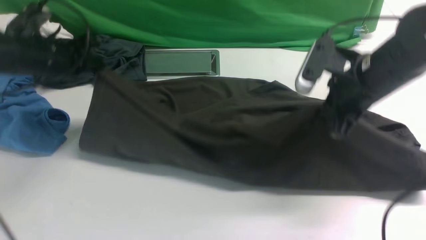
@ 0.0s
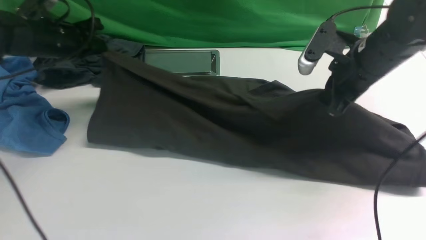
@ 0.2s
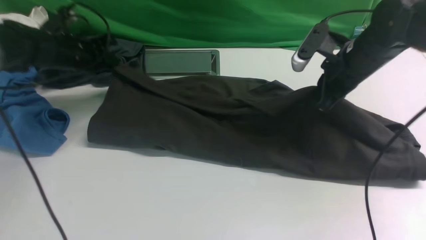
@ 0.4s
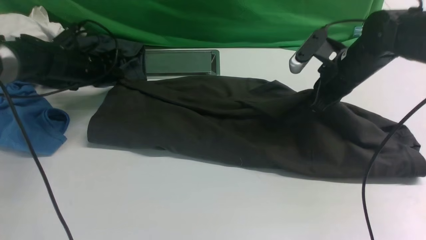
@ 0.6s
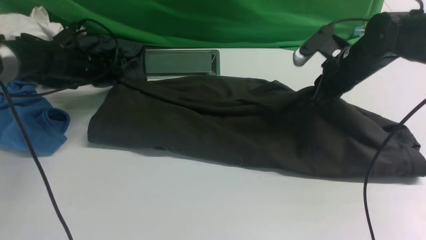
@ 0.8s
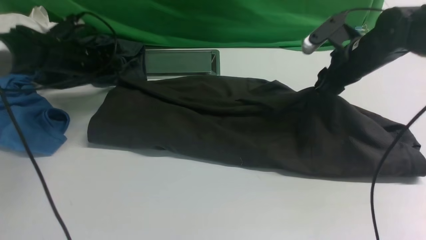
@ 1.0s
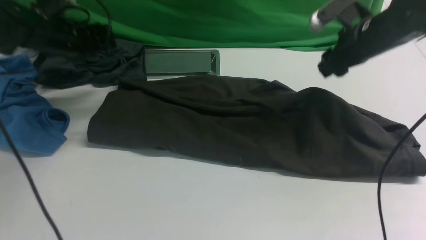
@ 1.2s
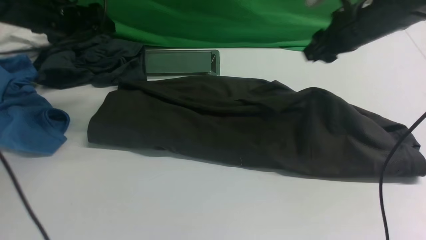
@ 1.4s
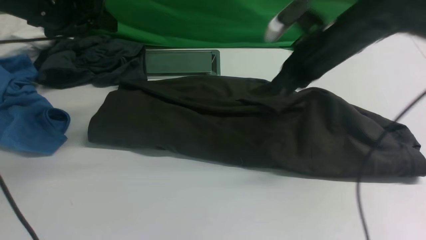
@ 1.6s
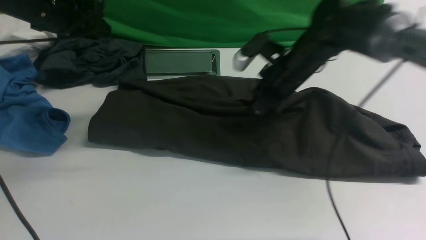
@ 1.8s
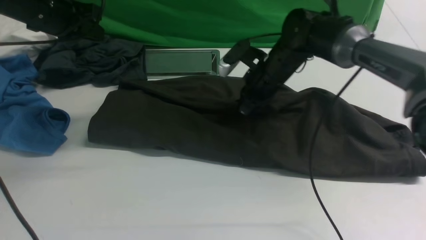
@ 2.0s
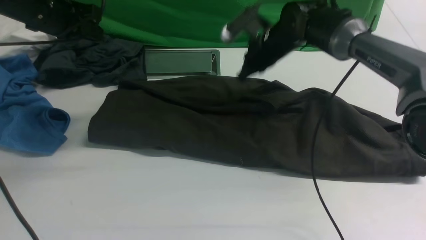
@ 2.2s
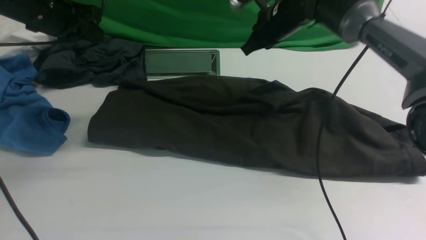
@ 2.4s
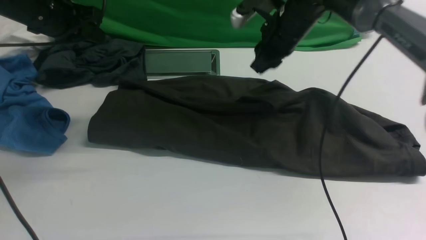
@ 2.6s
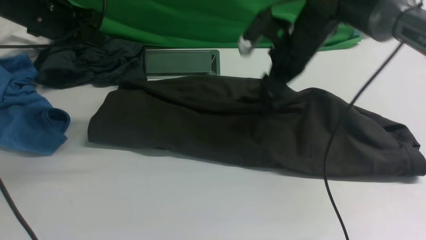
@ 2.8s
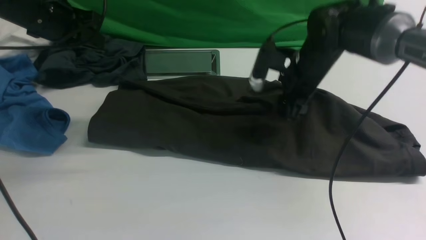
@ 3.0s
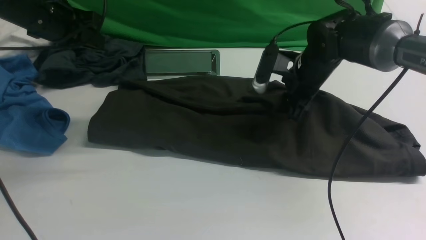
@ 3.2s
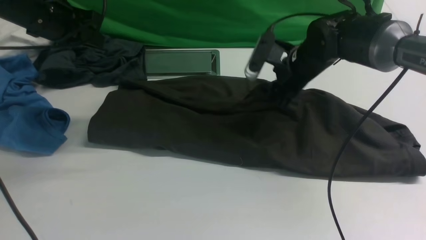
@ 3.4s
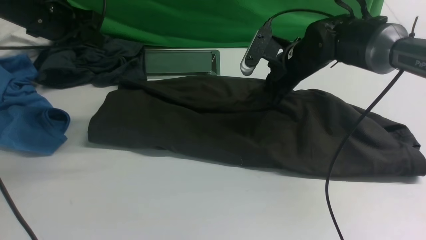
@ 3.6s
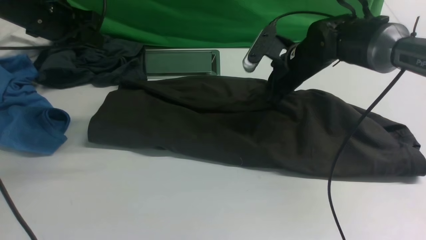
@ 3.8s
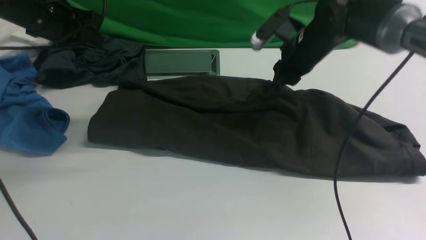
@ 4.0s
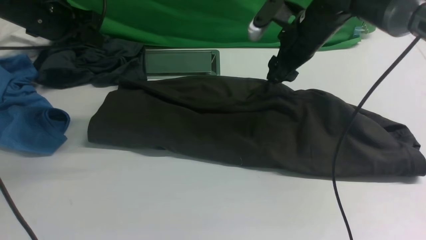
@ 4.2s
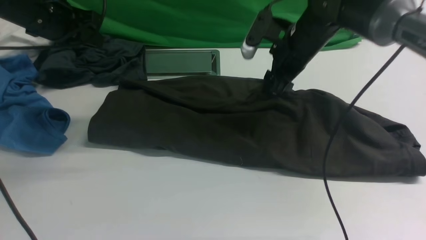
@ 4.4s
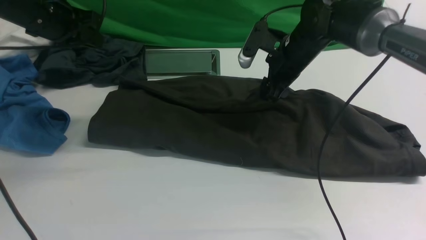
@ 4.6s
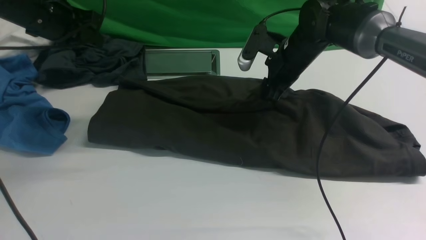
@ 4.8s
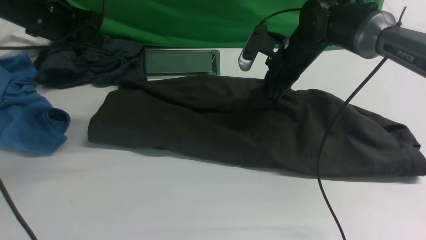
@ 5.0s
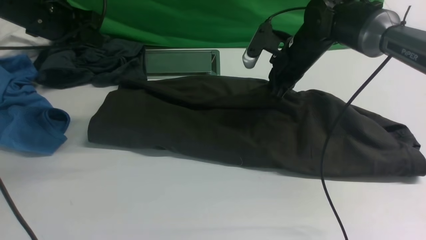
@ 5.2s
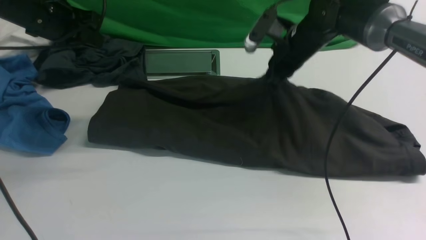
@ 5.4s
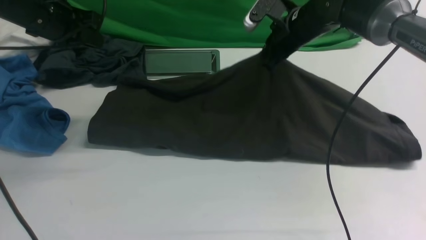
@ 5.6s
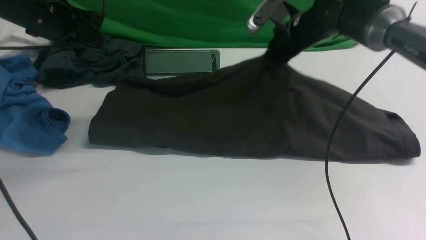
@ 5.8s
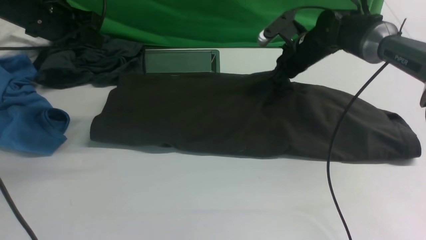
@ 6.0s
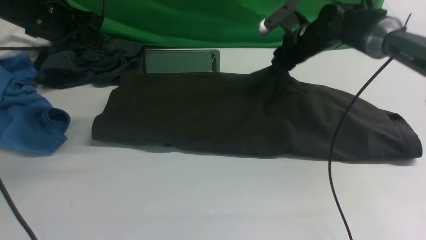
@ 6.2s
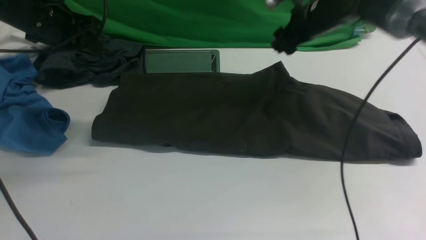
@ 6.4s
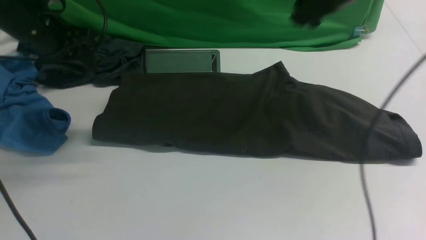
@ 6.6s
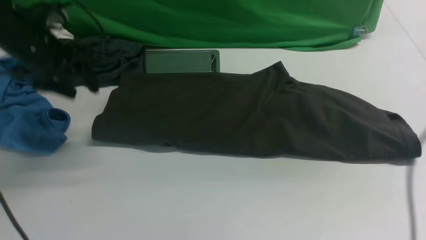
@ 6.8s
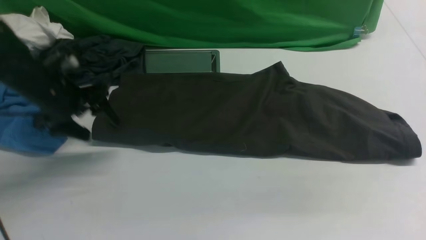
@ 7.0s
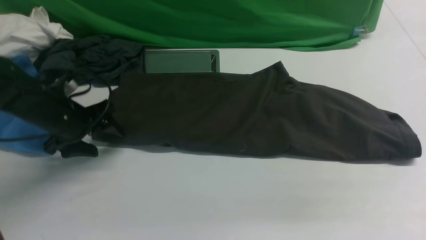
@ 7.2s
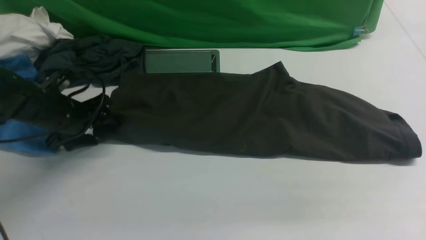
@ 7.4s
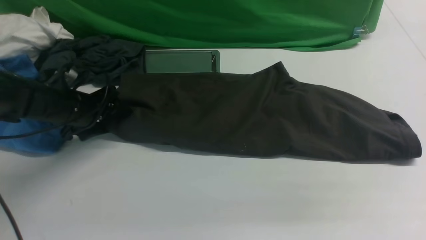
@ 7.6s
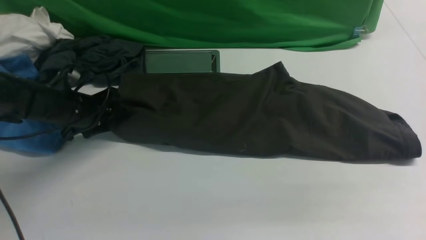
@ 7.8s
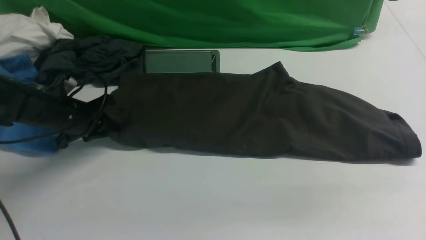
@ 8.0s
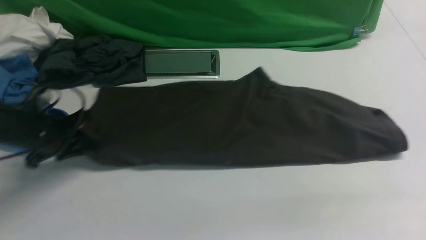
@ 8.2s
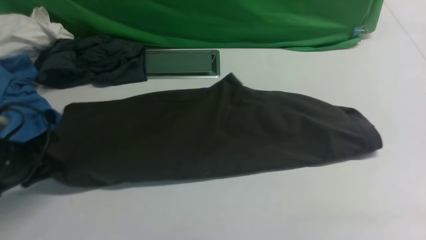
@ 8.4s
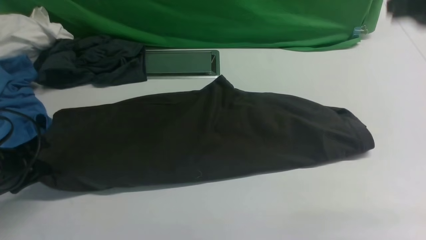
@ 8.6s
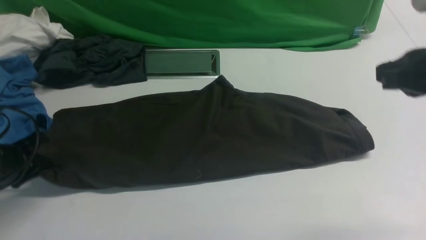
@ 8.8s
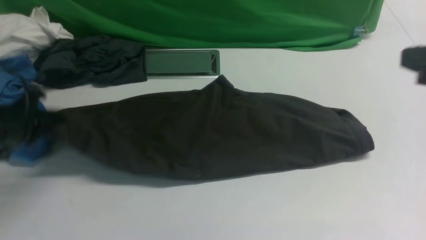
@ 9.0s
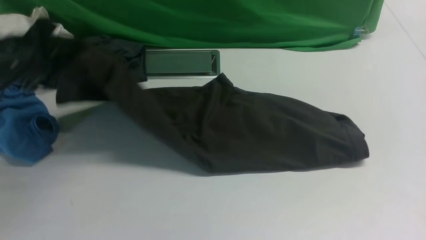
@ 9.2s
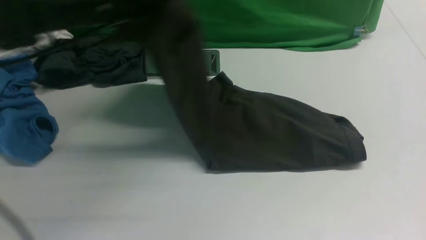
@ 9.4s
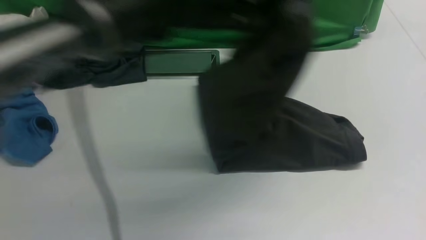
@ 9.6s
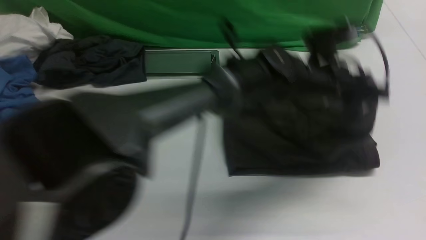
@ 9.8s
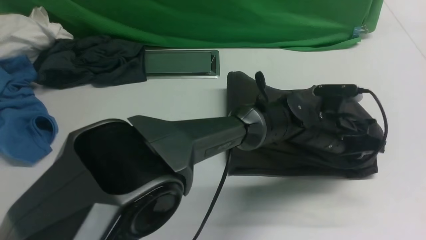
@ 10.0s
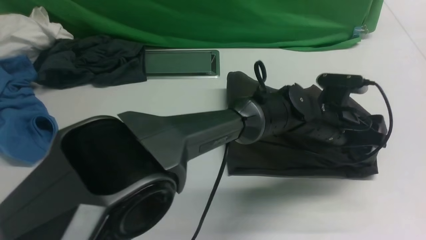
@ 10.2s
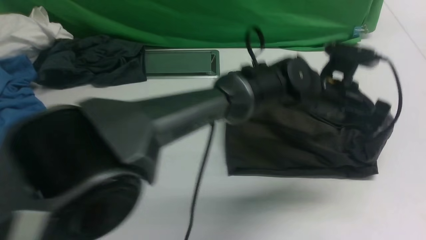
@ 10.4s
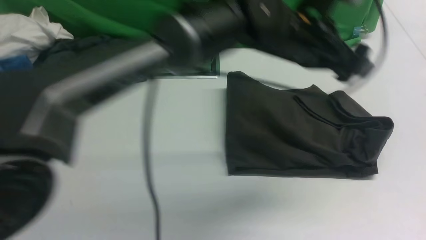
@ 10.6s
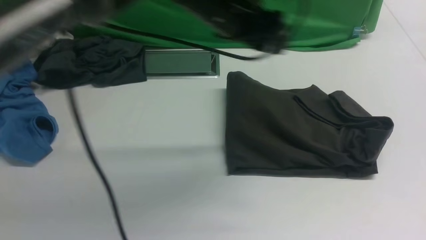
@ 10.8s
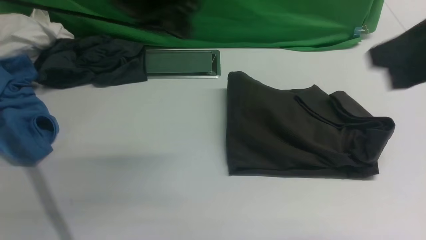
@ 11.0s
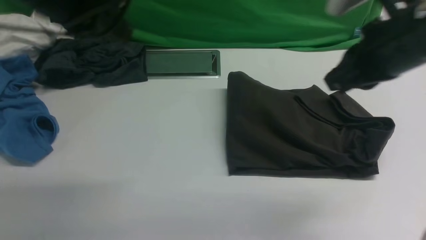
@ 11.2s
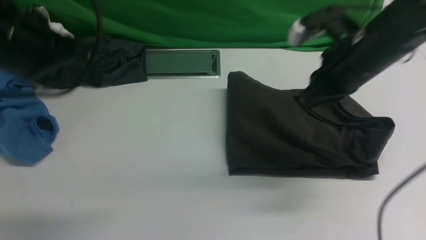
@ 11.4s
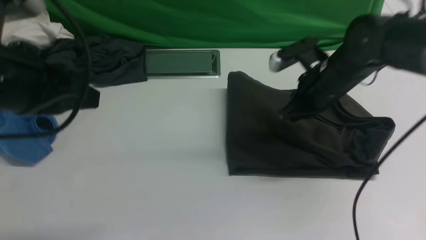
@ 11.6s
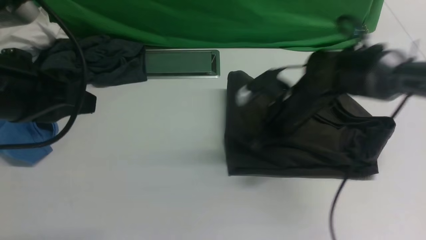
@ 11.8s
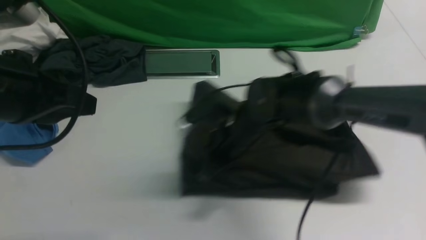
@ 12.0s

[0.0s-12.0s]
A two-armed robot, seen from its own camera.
Step, 0.0s to 6.4s: use both arms to drag the lower edge of the fabric forward and fold it over the upper edge.
Step, 6.6s to 8.8s: Hold the left edge of the fabric with your left arm.
Step, 9.0s to 10.8s: Drag the left edge of the fabric to the left with your left arm and fold it to the right edge.
0.0s to 1.6s: The right gripper moves forward, approximately 10 cm, and opens, then closes again. Meanwhile the left gripper moves upward, some 5 cm, and opens.
1.6s to 3.0s: The left gripper closes its fingers. The right gripper goes forward and returns, approximately 10 cm each way, and opens.
3.0s to 4.4s: The right gripper closes, then opens again.
4.4s to 6.0s: The right gripper goes some 5 cm forward, and closes up.
6.0s to 7.6s: The right gripper moves upward and backward, about 30 cm, and opens up. Meanwhile the left gripper is displaced downward by roughly 15 cm, and opens.
7.6s to 9.0s: The left gripper heads upward and backward, covering roughly 10 cm, and closes up. Meanwhile the right gripper moves backward, approximately 15 cm, and closes.
9.0s to 10.4s: The right gripper goes roughly 10 cm backward and upward. The left gripper goes about 40 cm to the right, and opens up.
10.4s to 12.0s: The right gripper is displaced downward, to the left and forward by roughly 40 cm, while the left gripper travels to the left and backward by some 40 cm, and closes its fingers.

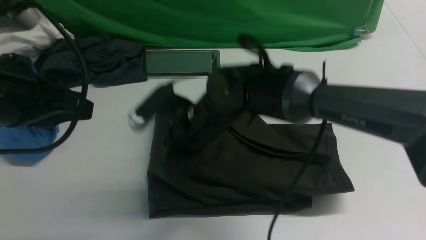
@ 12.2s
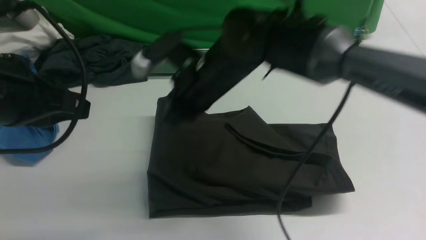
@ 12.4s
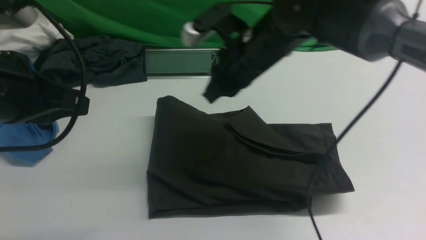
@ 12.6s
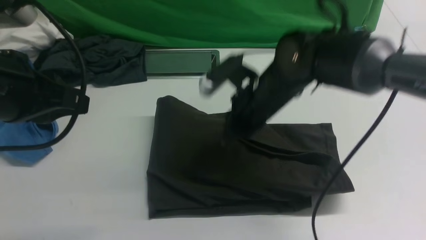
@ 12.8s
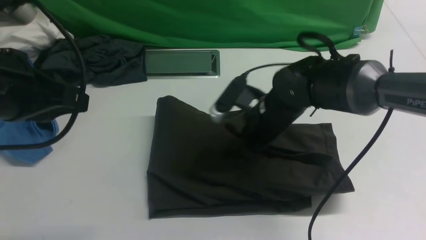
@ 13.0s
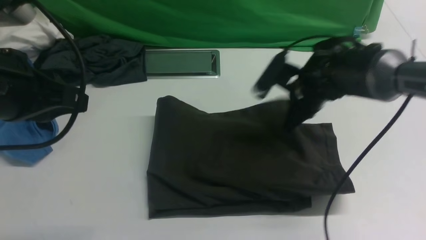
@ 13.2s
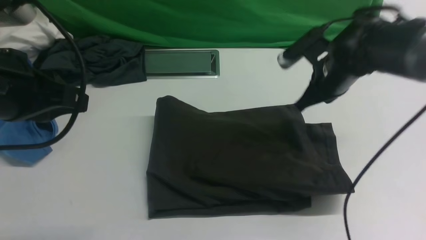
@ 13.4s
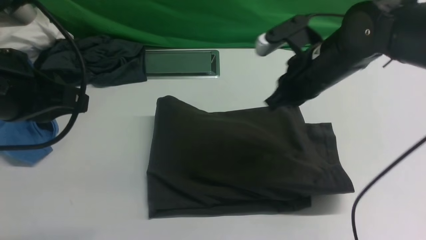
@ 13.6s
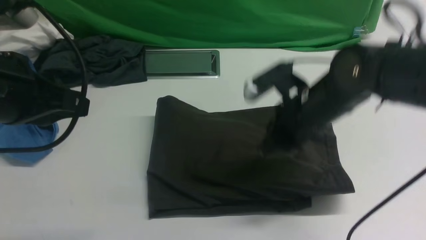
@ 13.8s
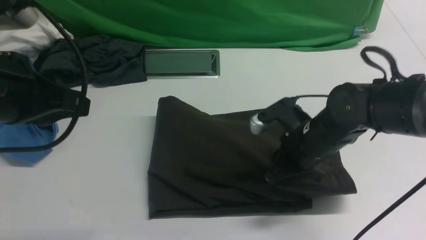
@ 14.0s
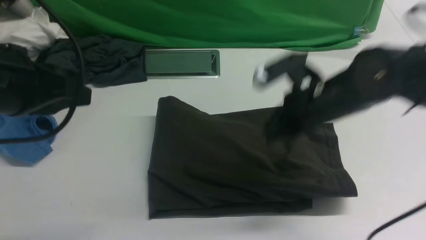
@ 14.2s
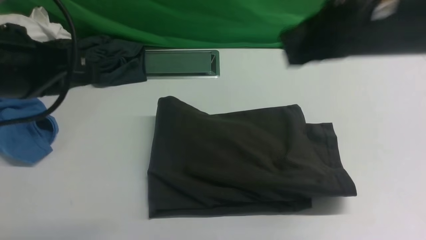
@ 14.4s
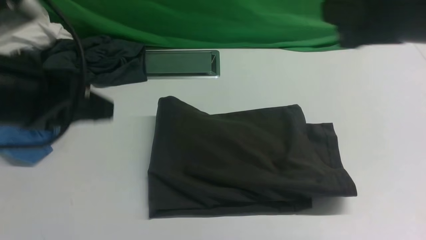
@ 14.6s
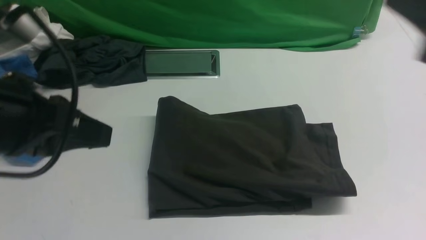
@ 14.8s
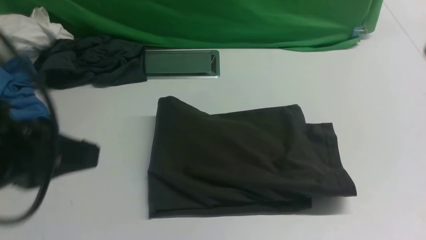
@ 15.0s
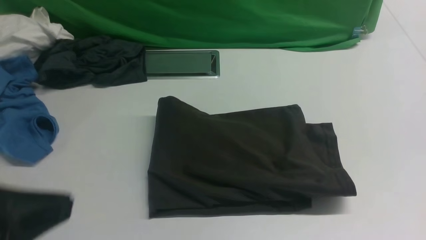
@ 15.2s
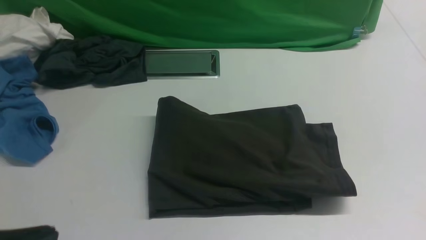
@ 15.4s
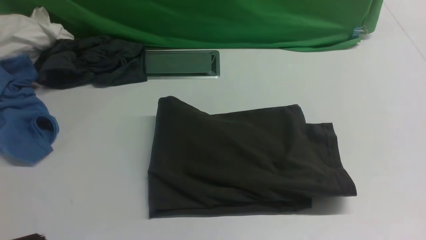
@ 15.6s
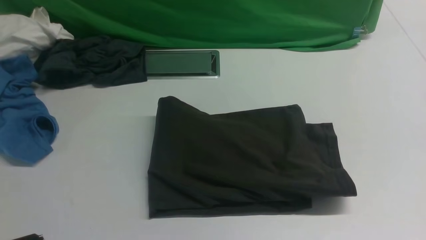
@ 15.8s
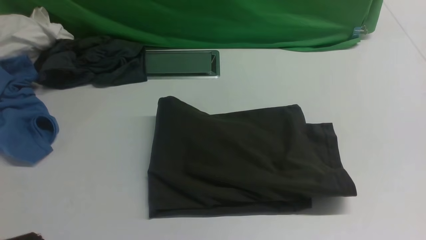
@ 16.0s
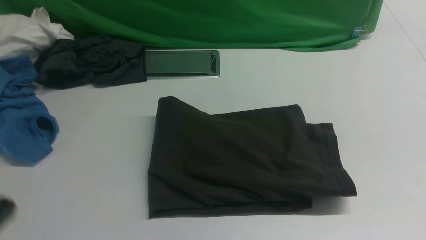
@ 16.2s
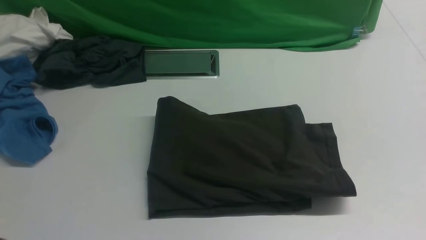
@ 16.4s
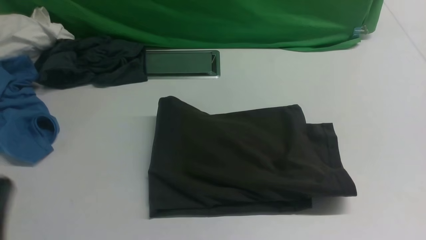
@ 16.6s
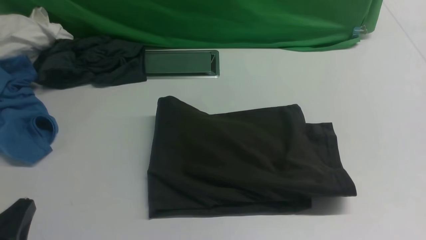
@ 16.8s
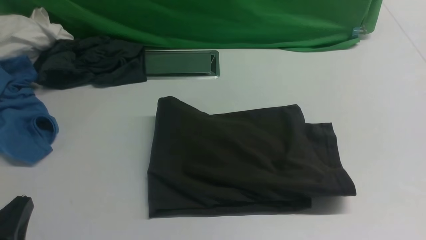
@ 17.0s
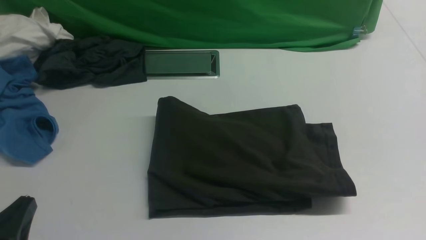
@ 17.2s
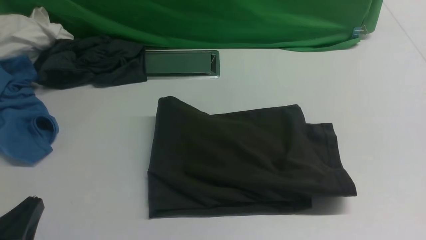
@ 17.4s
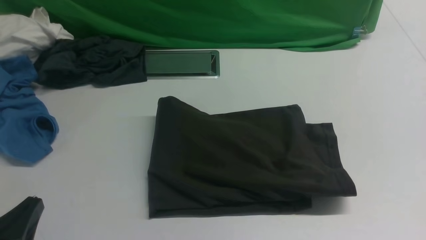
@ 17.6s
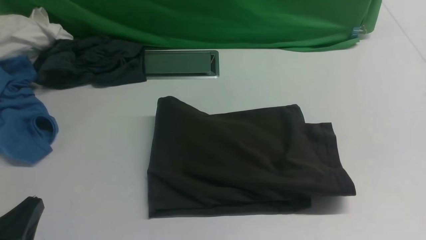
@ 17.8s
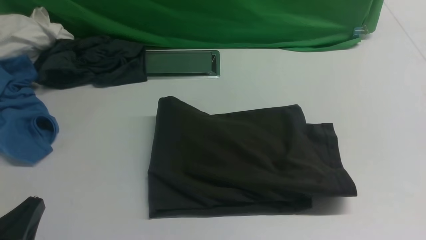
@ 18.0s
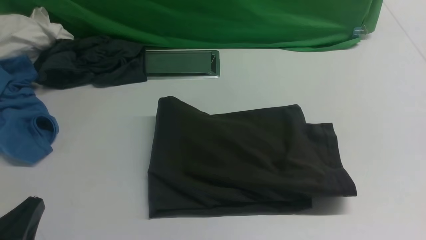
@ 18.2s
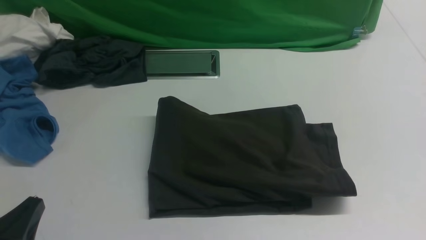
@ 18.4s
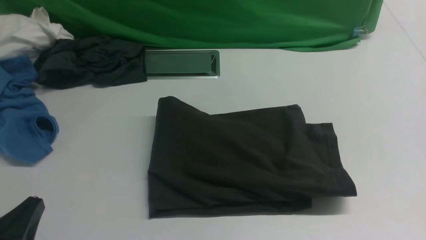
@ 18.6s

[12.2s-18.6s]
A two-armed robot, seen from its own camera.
12.2s to 13.8s: The right gripper goes about 15 cm to the right.
13.8s to 15.4s: The left gripper is displaced backward by roughly 15 cm. The right gripper moves backward, upward and to the right, approximately 30 cm.
15.4s to 17.0s: The left gripper is displaced downward by some 15 cm.
